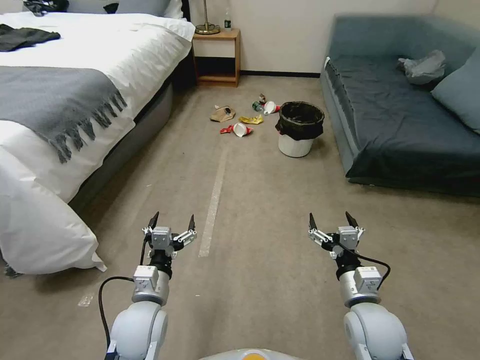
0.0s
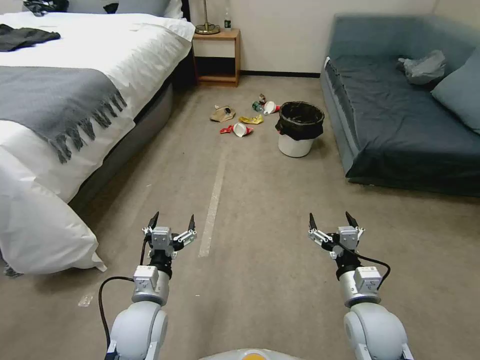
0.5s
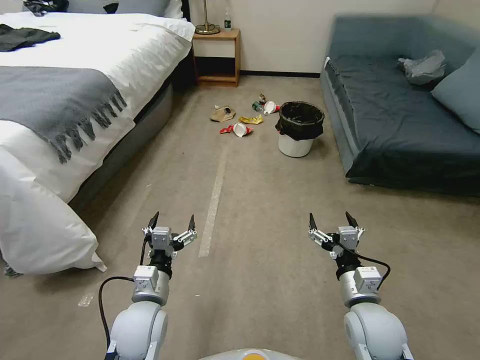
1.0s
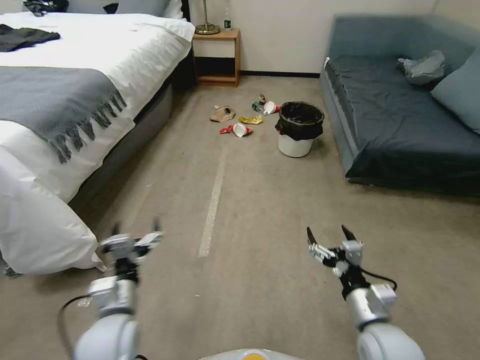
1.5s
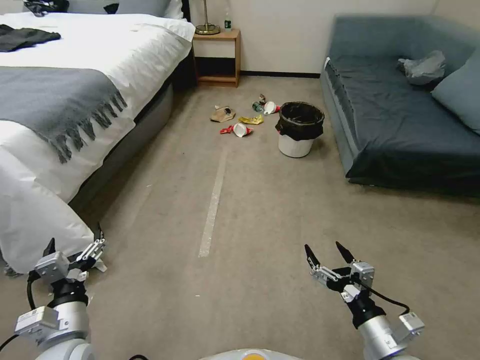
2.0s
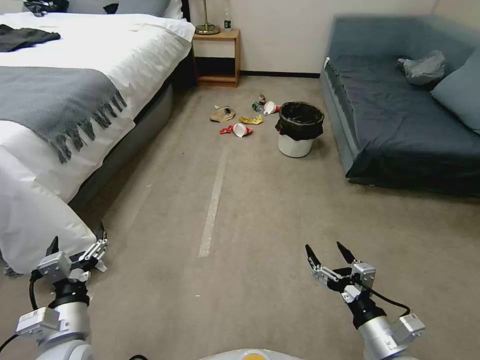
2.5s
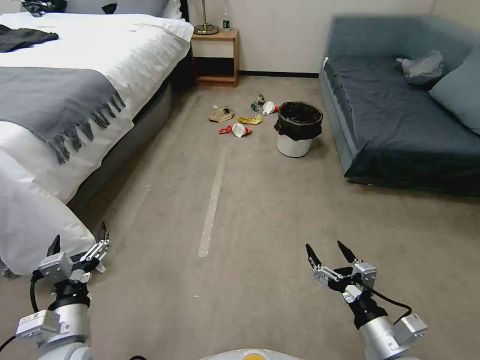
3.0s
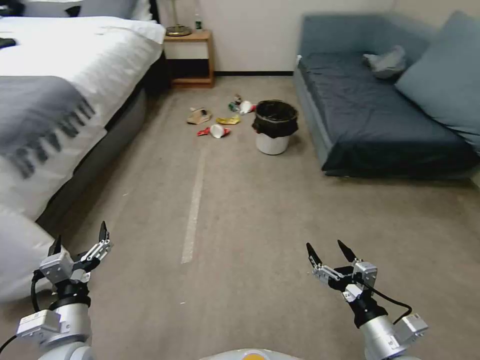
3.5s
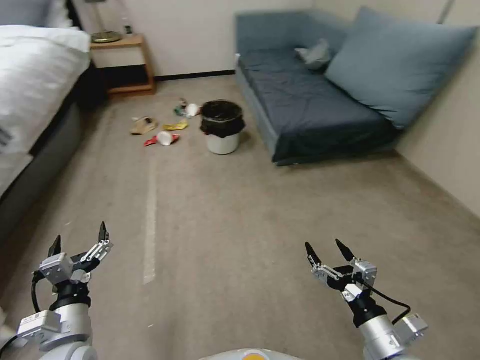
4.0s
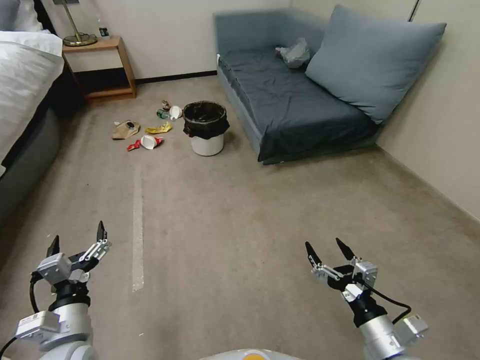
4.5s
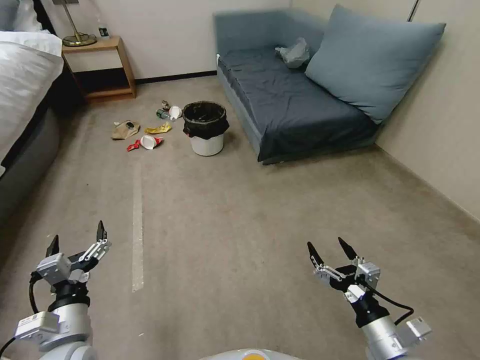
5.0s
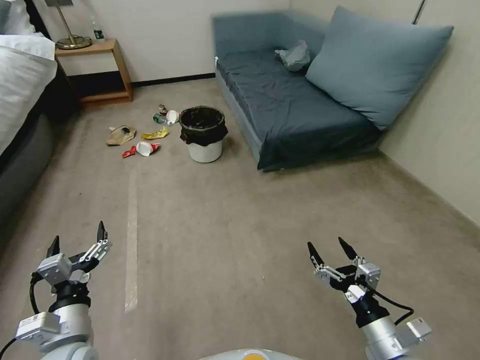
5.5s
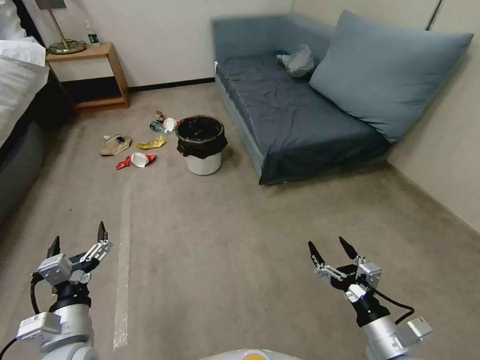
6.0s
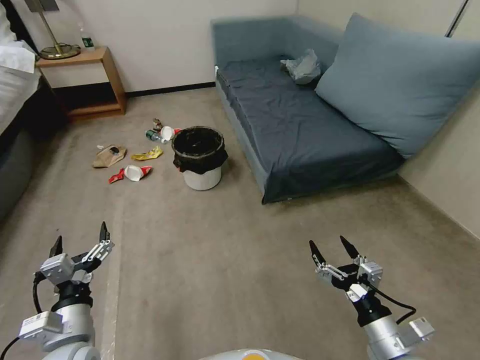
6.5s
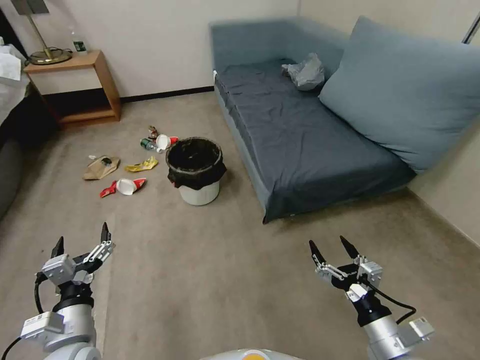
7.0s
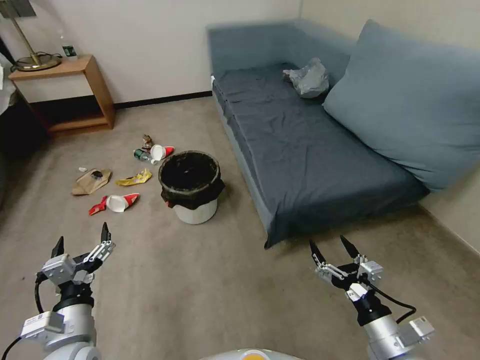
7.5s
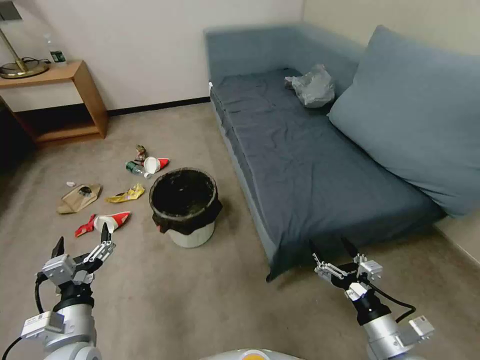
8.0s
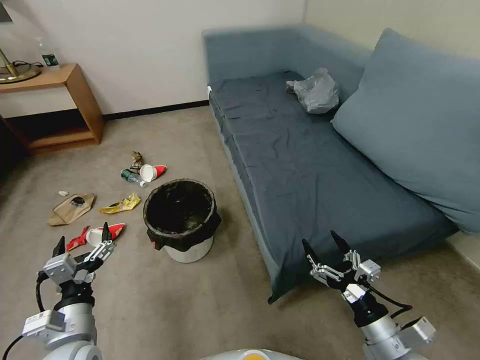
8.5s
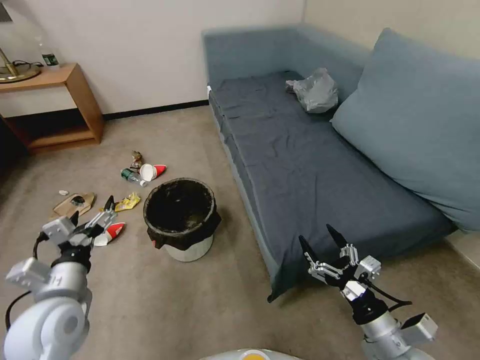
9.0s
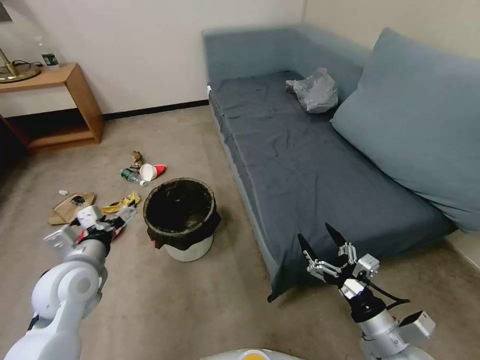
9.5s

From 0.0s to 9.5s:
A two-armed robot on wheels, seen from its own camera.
Task of the whole recording: Pick up the trash can from the floor.
From 7.5s to 9.5s: The left gripper travels forward and upward by about 15 cm.

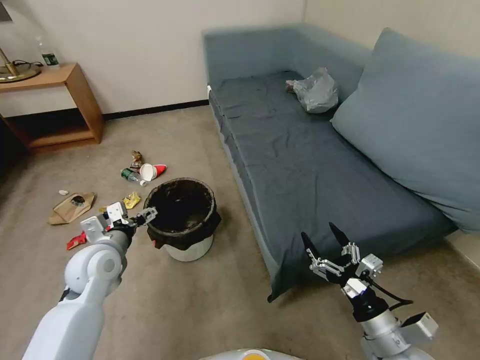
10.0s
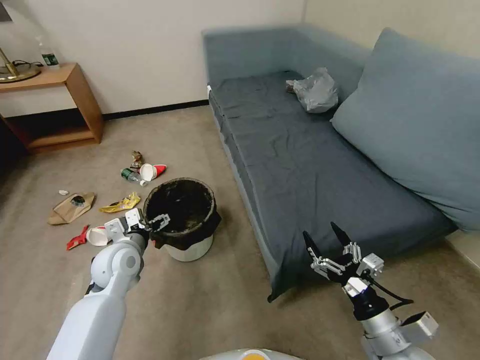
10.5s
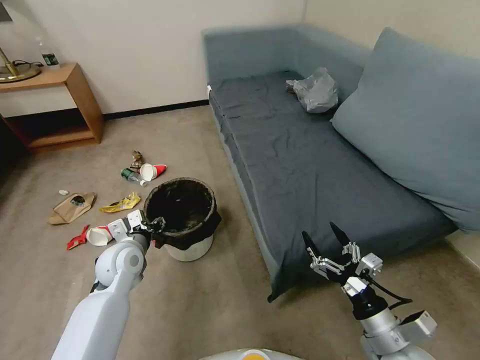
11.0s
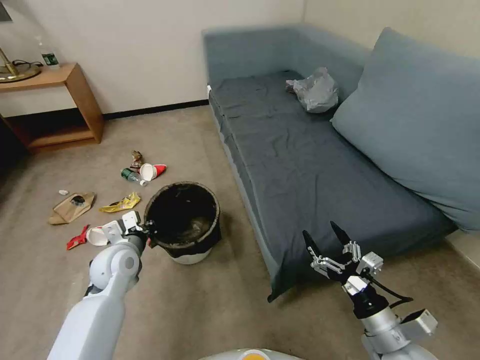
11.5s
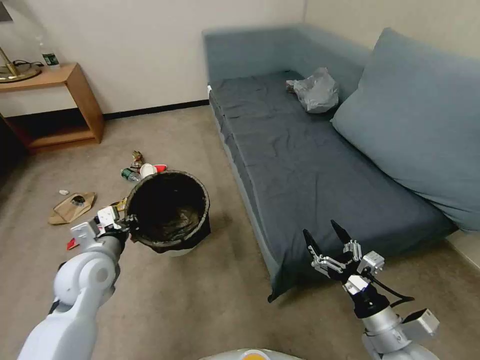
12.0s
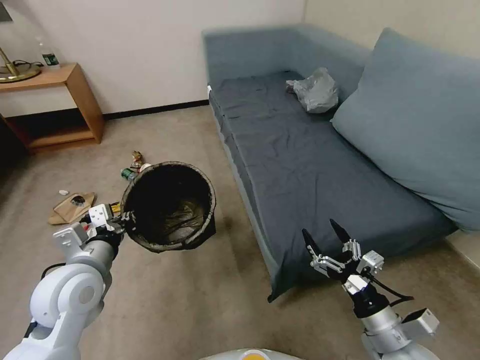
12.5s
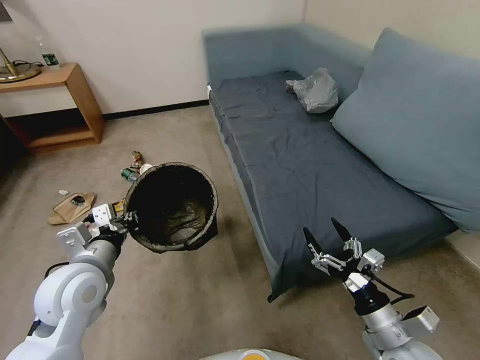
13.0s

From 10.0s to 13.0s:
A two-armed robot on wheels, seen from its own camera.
Task of the whole recording: Pick up the trash can from the floor.
From 10.0s to 11.5s: The left gripper ends up about 5 cm from where it was, and closes its fingers.
From 11.5s to 13.0s: The left gripper shifts approximately 15 cm upward and backward.

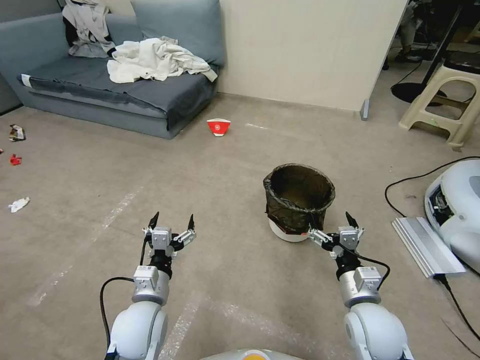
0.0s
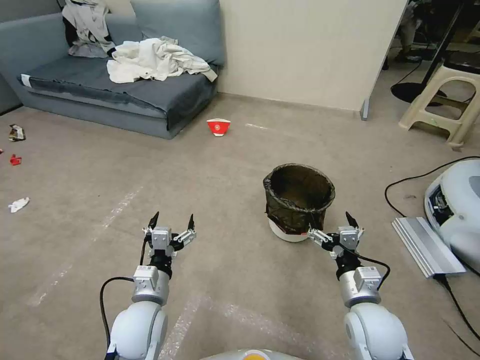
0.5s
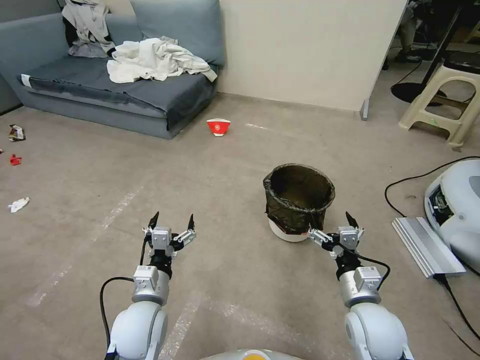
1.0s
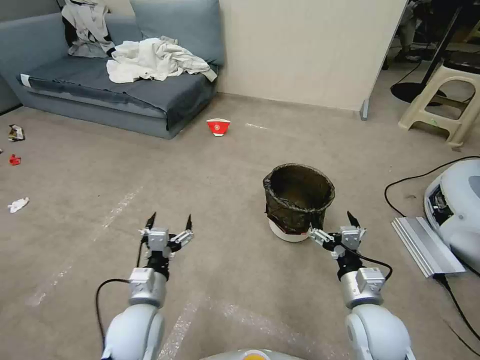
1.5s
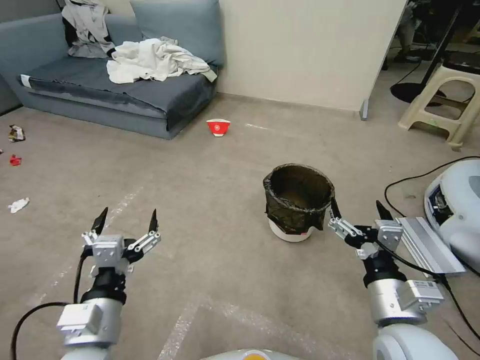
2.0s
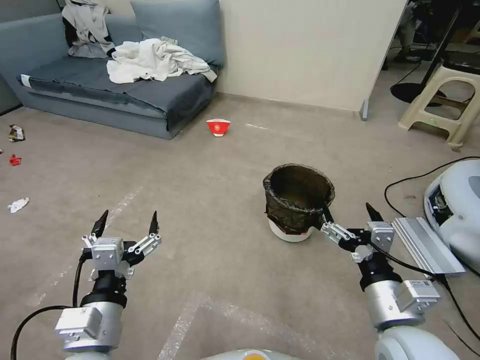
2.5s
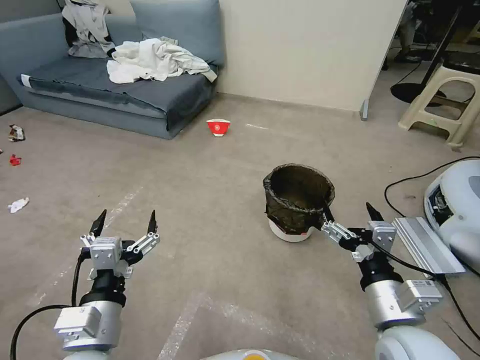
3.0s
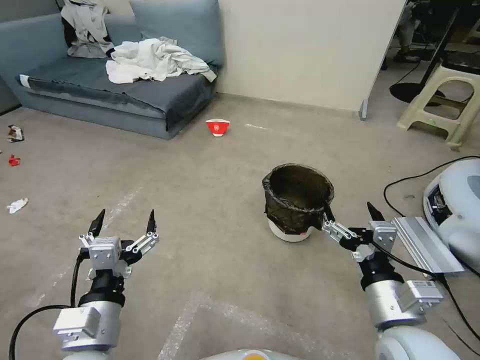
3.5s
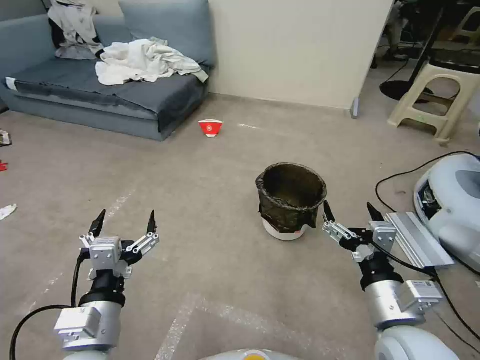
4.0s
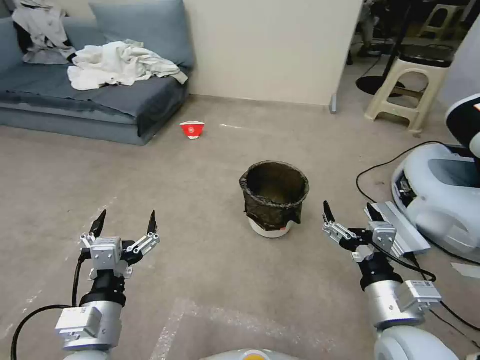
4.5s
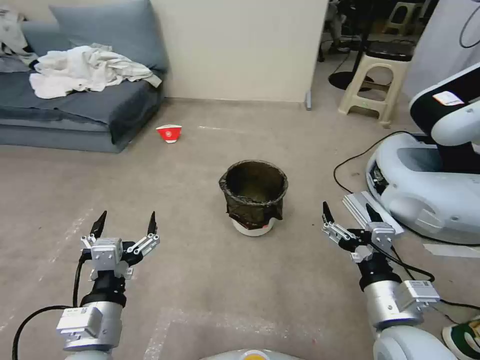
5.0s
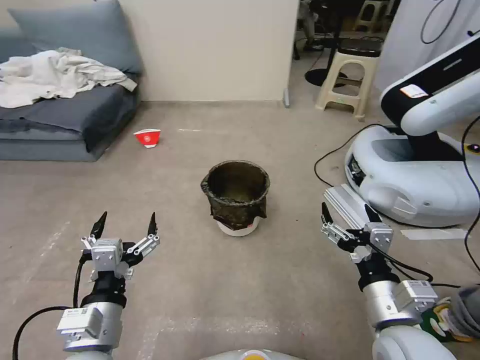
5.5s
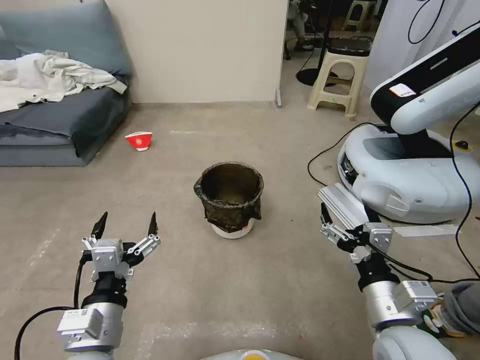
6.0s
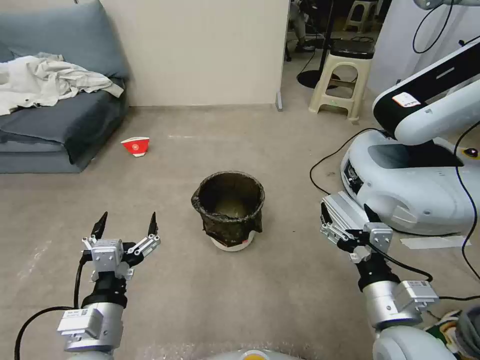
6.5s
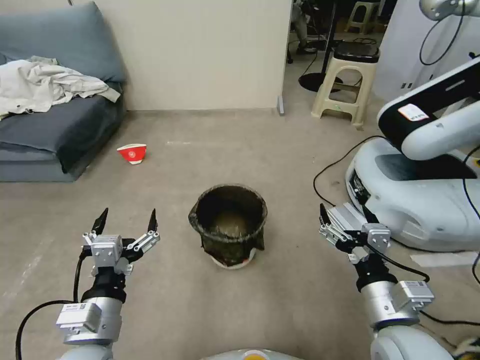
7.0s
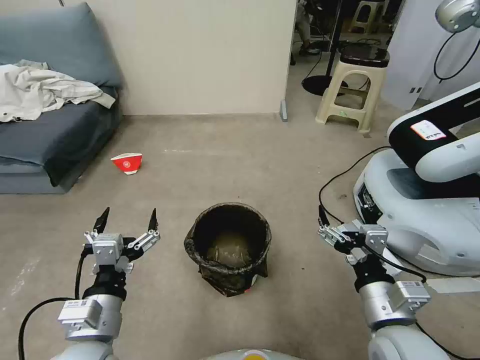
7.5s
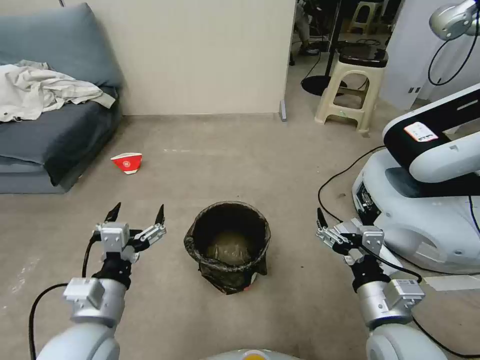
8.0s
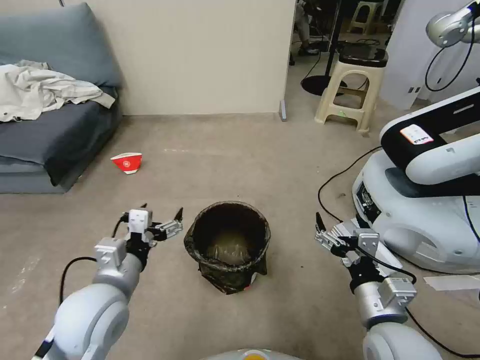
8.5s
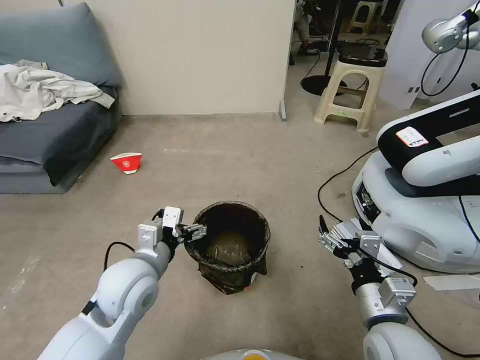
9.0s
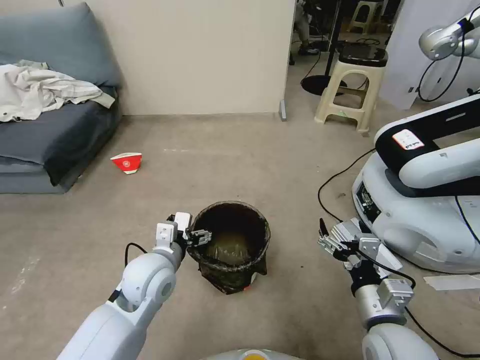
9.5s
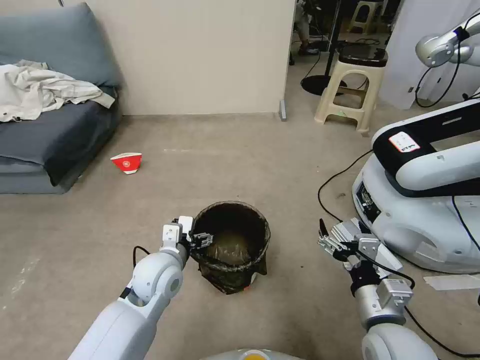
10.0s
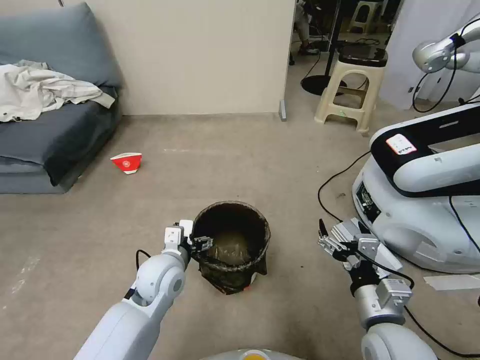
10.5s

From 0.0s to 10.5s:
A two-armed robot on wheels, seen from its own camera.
Task of the whole recording: Pick up the trash can from the floor.
From 2.0s to 4.0s: The grippers move only a little.
From 6.5s to 8.5s: The left gripper moves forward, about 10 cm.
From 8.5s to 10.5s: The left gripper is displaced forward, downward and to the right by about 15 cm.

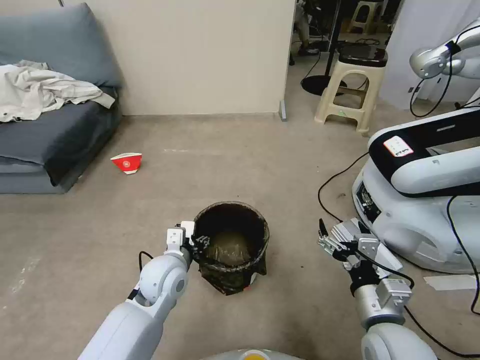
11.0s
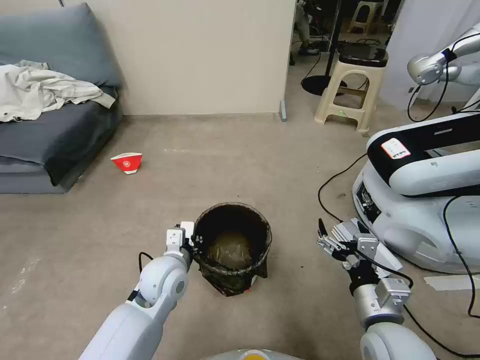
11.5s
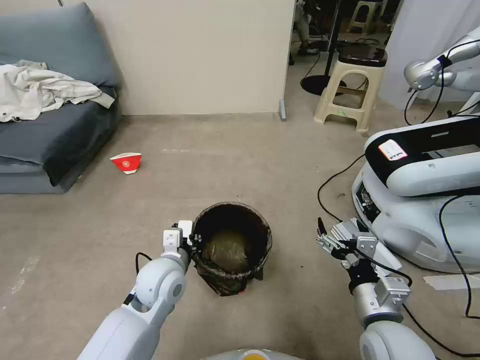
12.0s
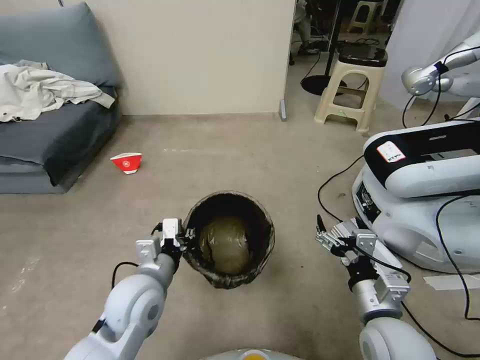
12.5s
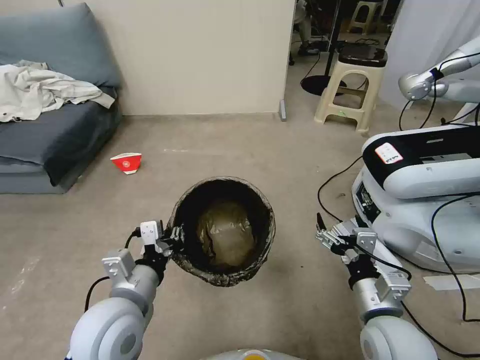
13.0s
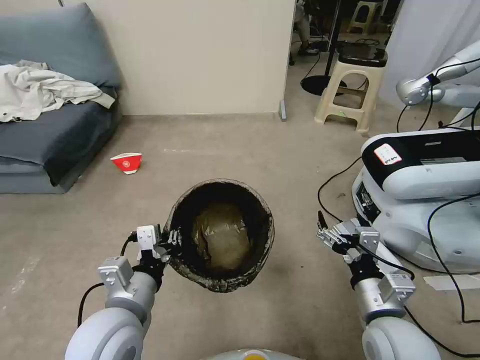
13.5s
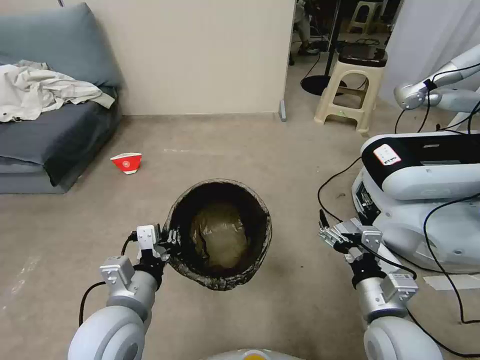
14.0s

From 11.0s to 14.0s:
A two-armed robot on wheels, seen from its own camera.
Task of the whole recording: Pick up the trash can from the floor.
From 11.0s to 12.5s: The left gripper moves backward, about 5 cm, and closes.
From 12.5s to 14.0s: The left gripper goes roughly 5 cm backward.
